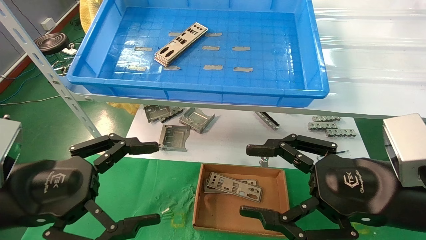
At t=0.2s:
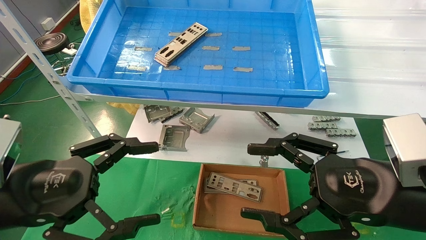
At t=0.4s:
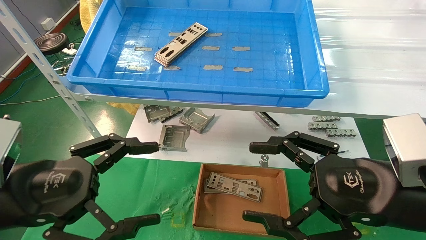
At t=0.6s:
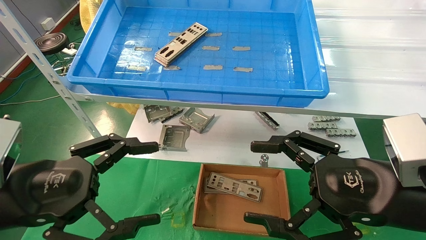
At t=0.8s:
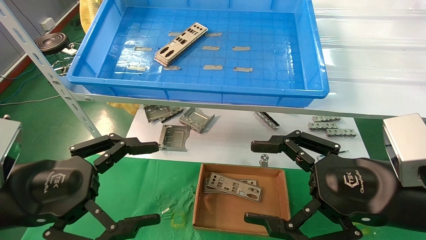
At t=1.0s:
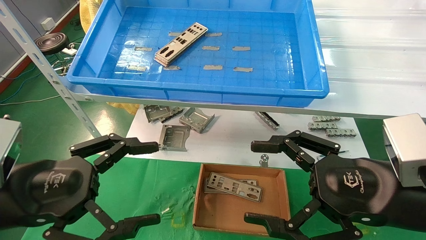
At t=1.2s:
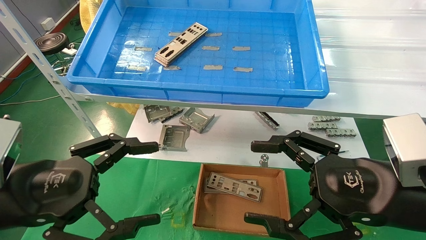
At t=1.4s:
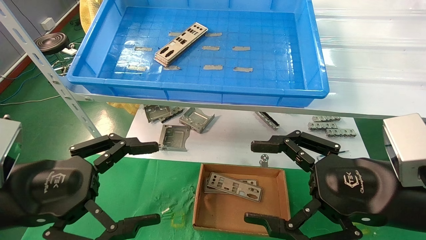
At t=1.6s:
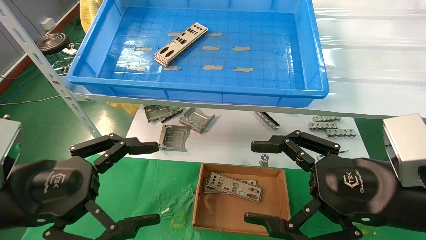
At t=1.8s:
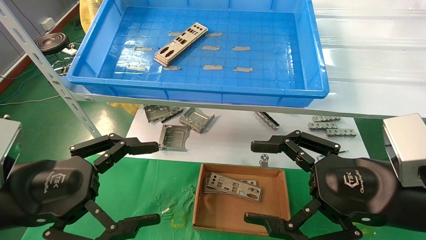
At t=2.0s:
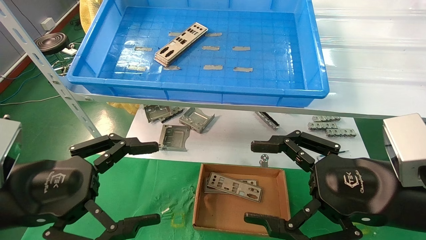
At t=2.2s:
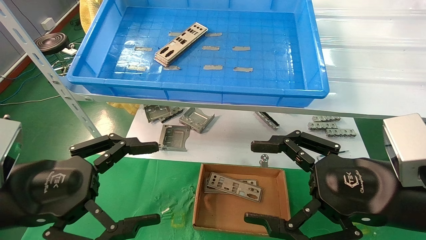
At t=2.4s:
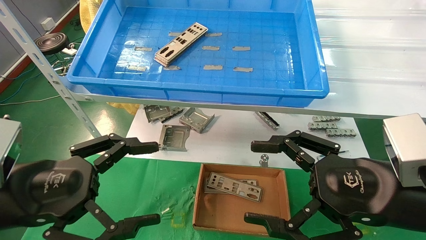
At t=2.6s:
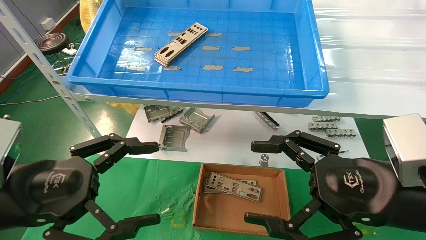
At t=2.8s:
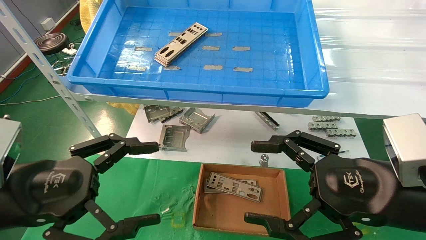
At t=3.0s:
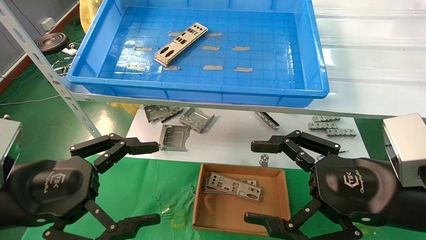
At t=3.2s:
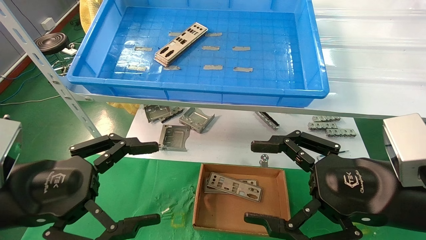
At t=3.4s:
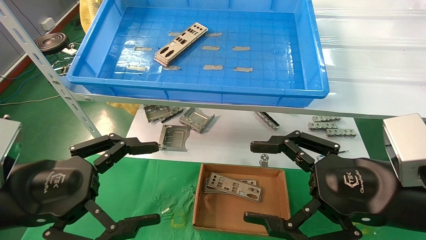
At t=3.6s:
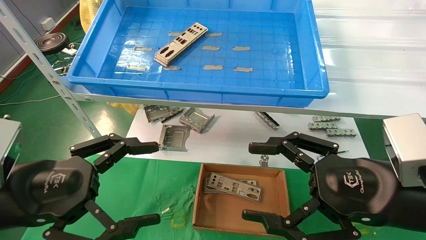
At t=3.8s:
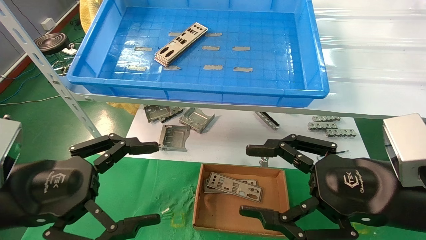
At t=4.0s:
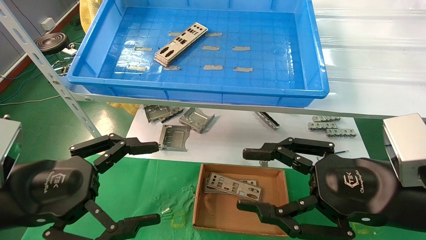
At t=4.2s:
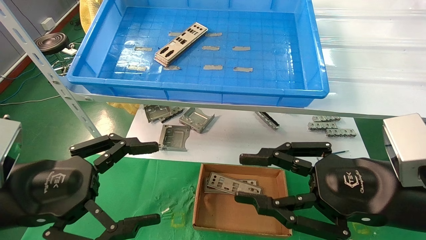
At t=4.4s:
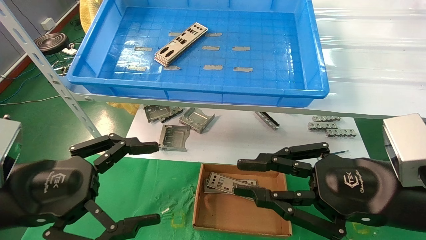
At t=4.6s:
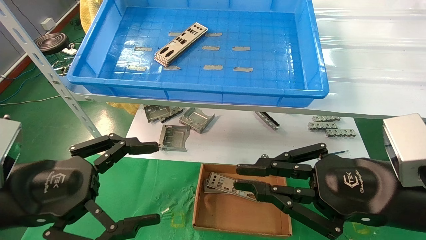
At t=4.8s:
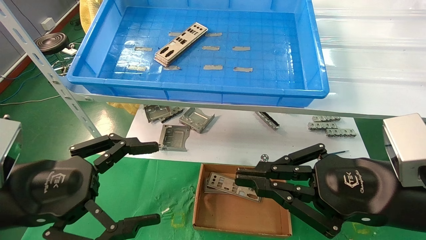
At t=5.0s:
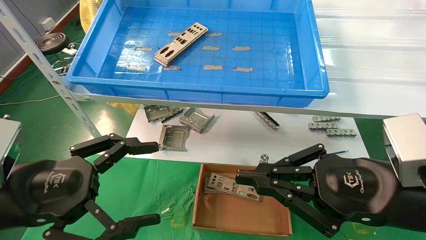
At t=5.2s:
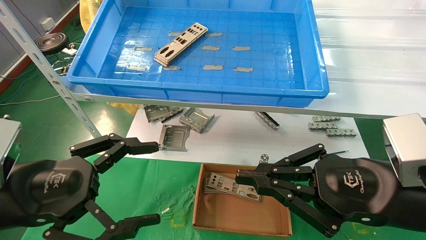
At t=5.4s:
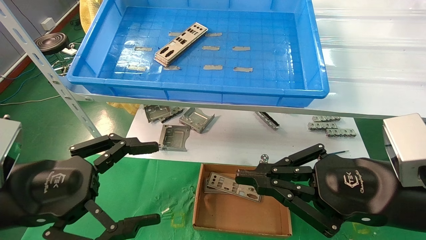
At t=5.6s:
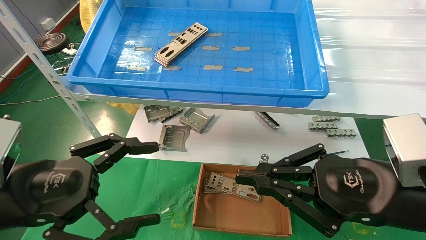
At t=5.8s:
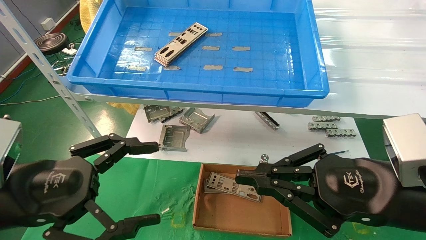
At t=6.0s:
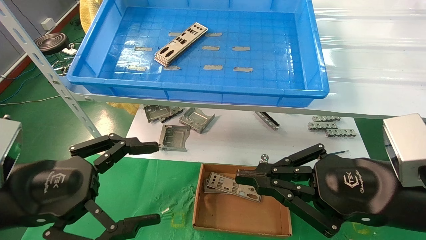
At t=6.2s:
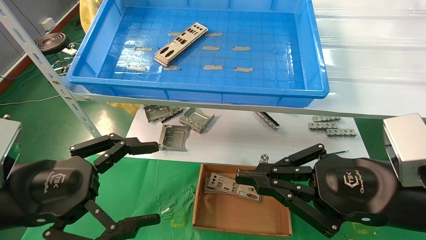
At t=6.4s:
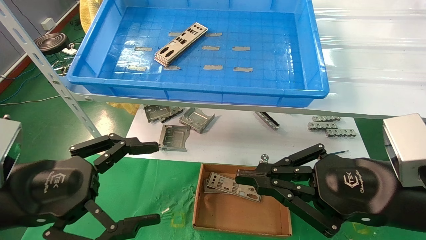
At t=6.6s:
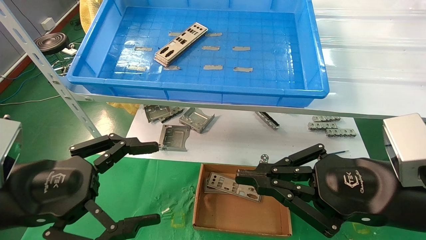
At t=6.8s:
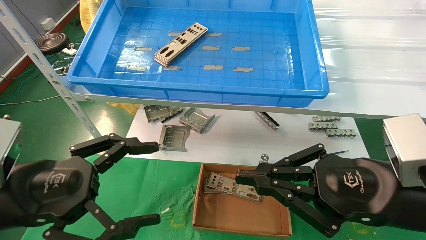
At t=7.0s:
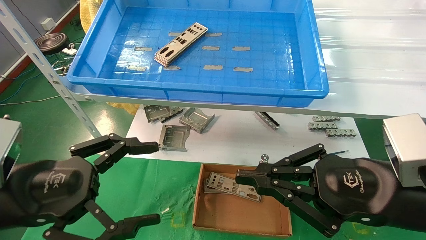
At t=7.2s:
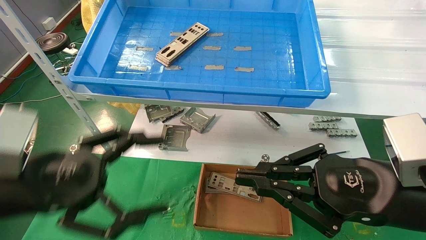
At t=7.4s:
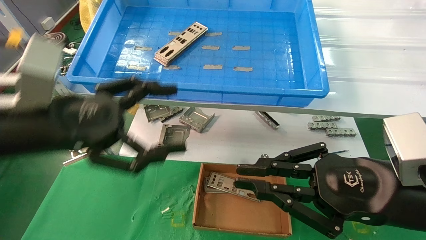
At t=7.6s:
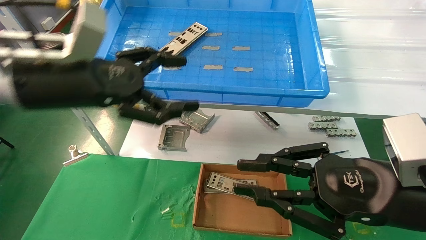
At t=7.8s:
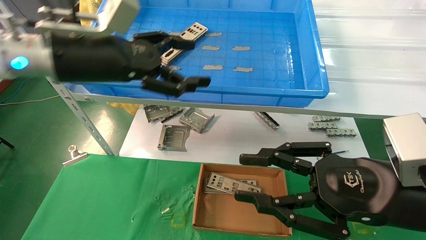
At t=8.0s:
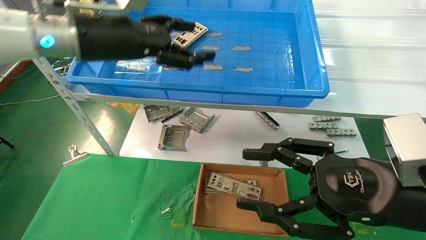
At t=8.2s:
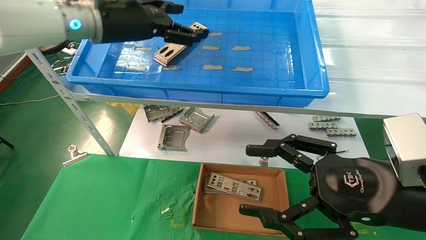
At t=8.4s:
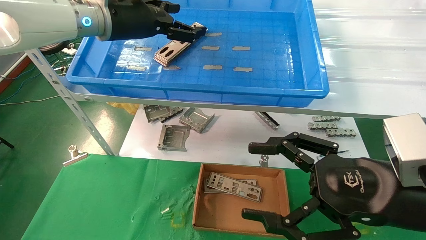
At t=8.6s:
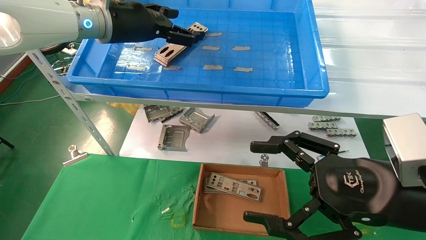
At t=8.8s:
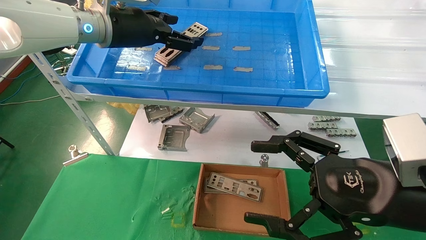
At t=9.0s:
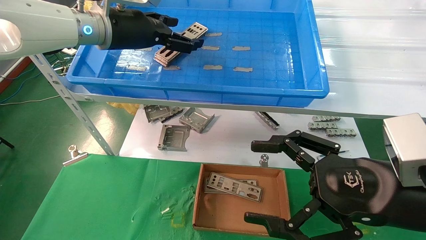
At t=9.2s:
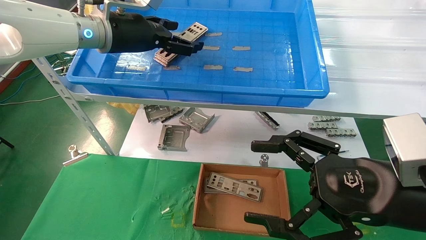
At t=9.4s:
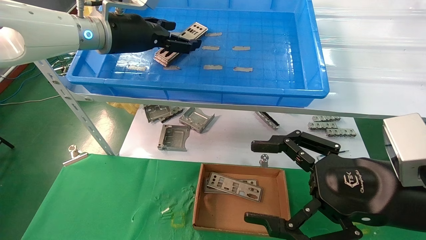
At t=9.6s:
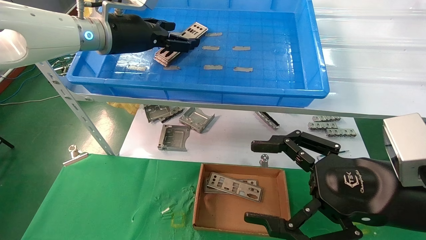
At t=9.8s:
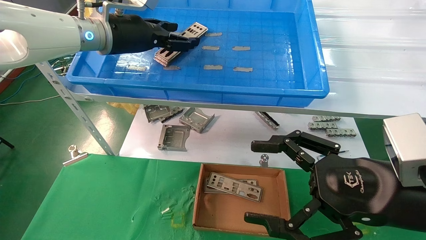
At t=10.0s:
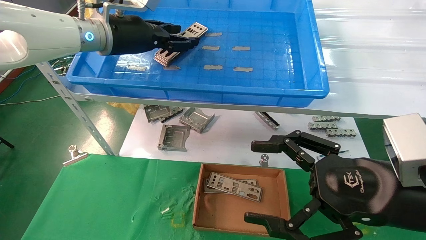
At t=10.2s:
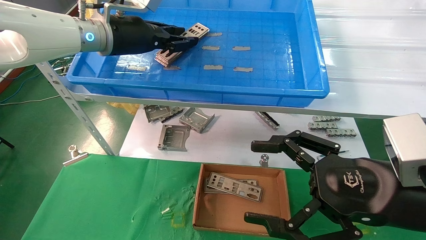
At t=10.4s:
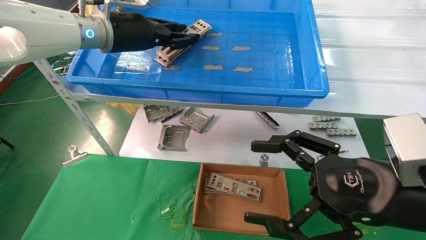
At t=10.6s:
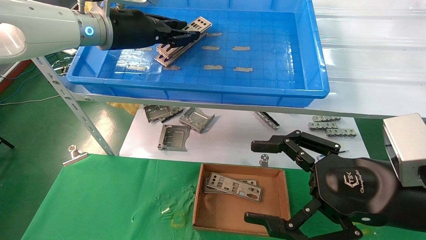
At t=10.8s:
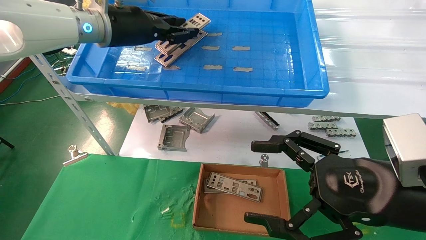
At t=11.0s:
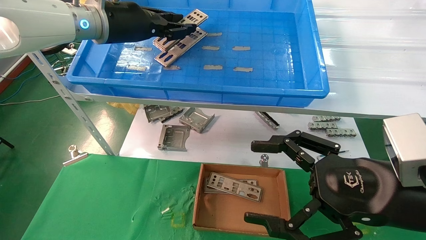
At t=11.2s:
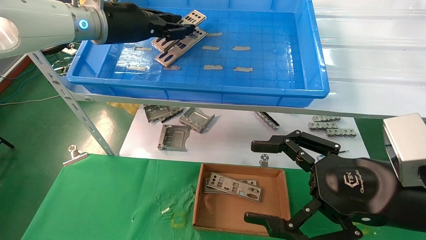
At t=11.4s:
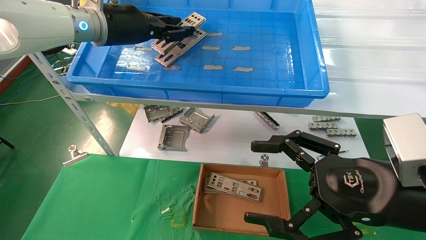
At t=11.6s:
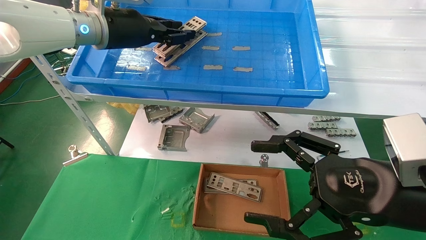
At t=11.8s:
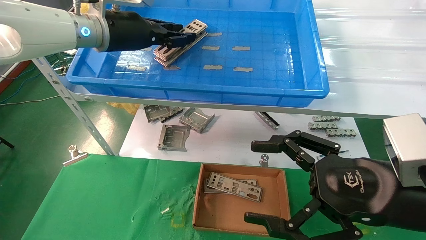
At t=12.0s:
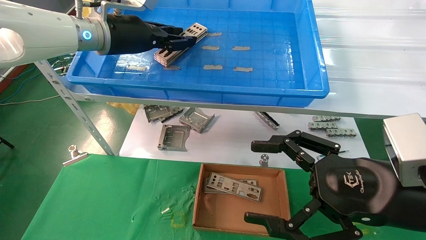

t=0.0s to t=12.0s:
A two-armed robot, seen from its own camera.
Task of the whole recording: pick up the parts on the tray and put them in the cardboard box.
t=0.0s to t=3.0s: Both grippers stay put.
t=3.0s to t=4.4s: The right gripper closes up.
t=4.4s to t=6.0s: The right gripper closes its fingers.
t=6.0s to t=7.6s: The left gripper heads upward and forward, covering approximately 15 cm.
t=7.6s to t=9.0s: The left gripper heads forward and upward, covering approximately 15 cm. The right gripper opens.
t=9.0s to t=10.4s: The left gripper closes its fingers.
t=10.4s to t=12.0s: The two grippers keep their place.

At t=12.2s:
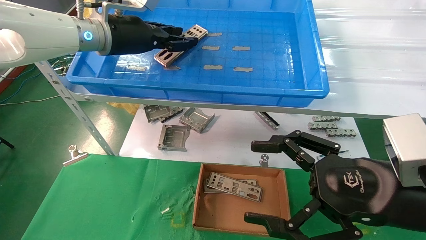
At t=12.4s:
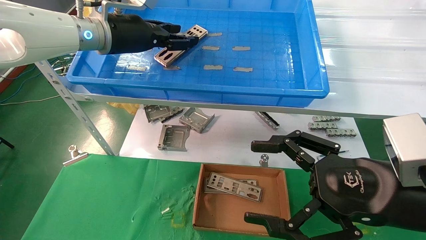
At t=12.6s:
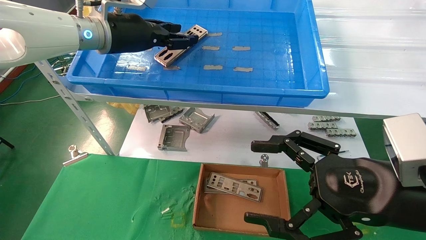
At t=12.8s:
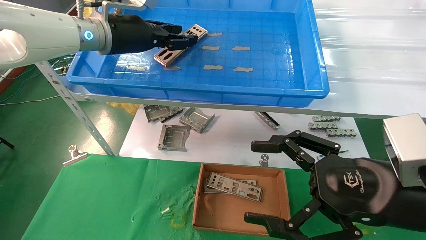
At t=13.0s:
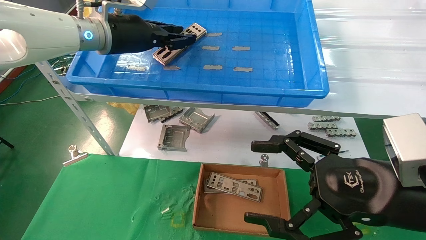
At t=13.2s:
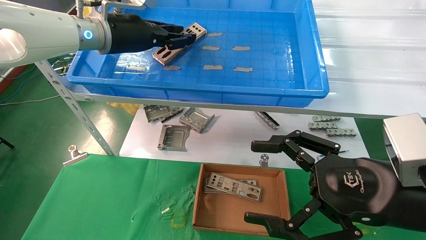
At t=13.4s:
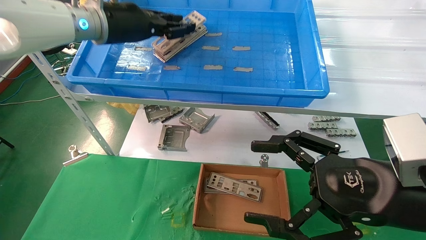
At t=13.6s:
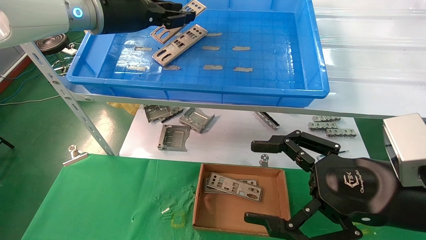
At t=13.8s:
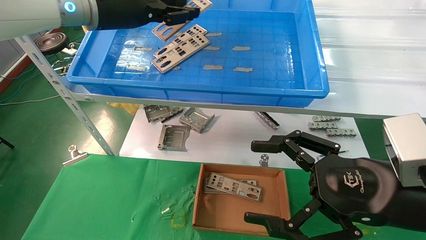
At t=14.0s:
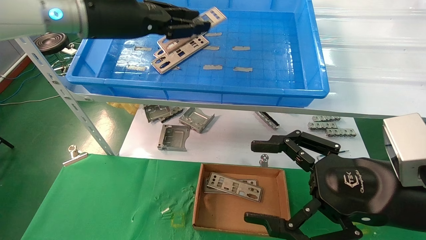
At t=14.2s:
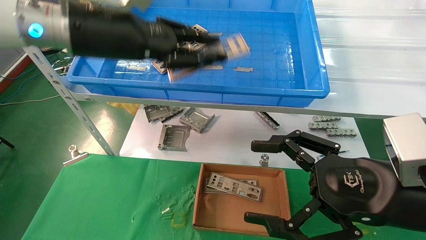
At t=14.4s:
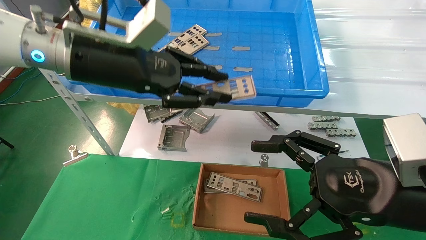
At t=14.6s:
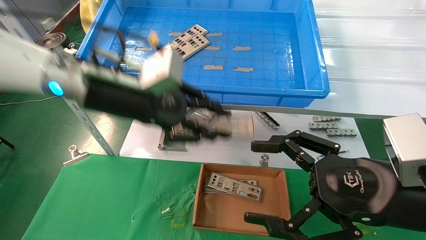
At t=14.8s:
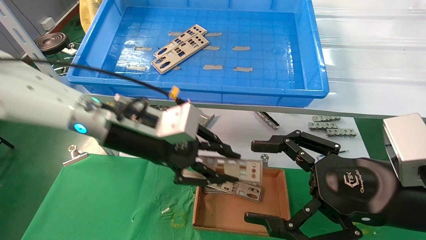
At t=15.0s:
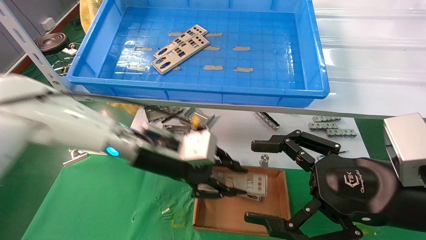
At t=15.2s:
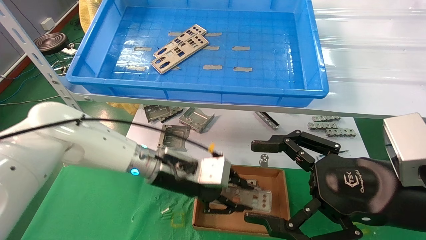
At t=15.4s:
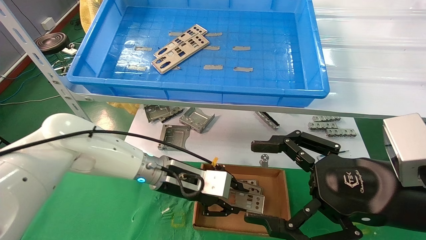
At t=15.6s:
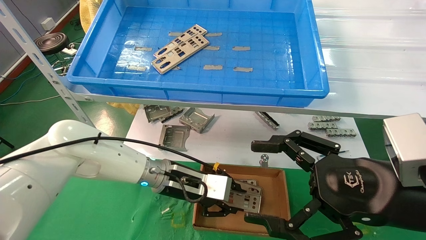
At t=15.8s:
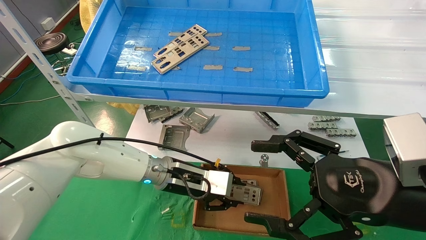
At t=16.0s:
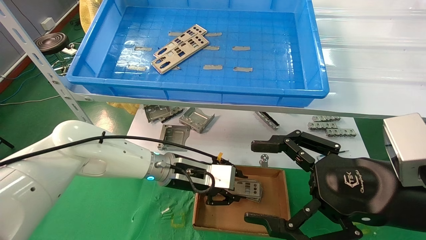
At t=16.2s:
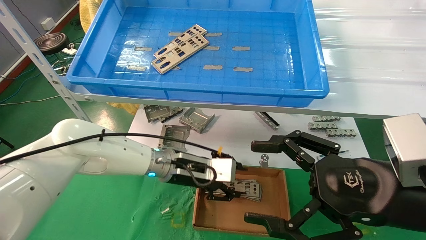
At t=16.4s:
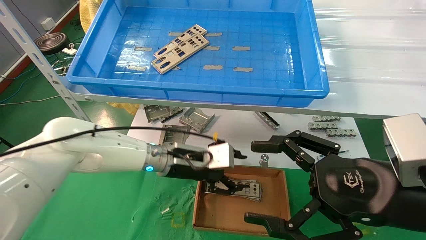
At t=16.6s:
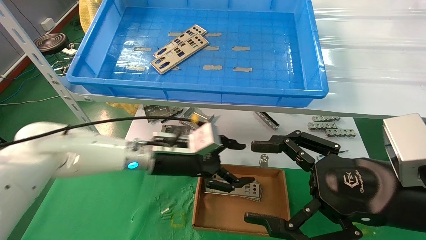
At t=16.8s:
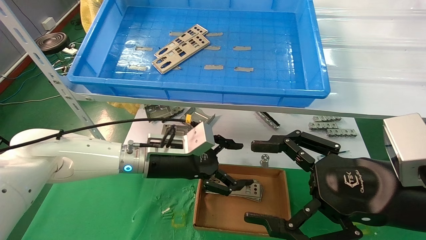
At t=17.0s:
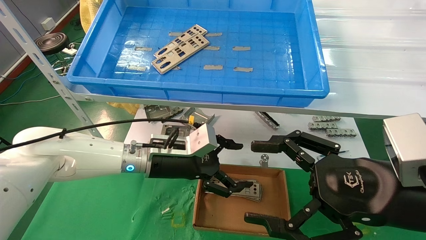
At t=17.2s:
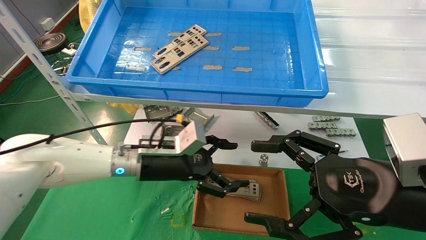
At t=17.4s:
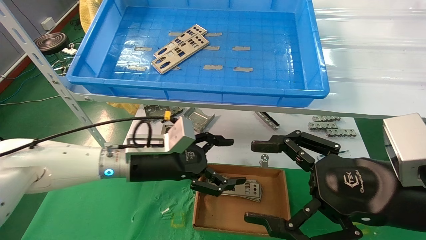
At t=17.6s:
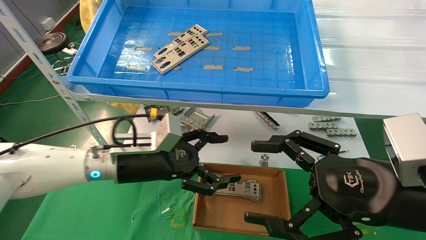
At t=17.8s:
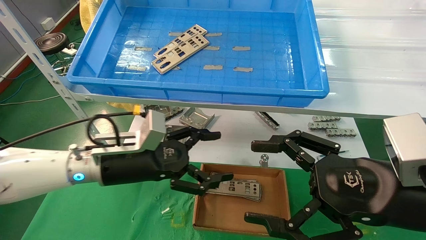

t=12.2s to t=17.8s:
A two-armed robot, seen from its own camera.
Task of the whole recording: pick up the parts on the tray and put them in the cardboard box.
Step, t=13.2s to t=16.2s: Place the IO bracket into the ingredient slot.
t=12.2s to t=13.6s: The grippers move only a little.
t=13.6s to t=15.0s: The left gripper travels downward by roughly 25 cm.
t=15.0s to t=16.4s: The left gripper moves downward, approximately 5 cm, and opens its fingers.
t=16.4s to t=17.8s: The left gripper goes some 10 cm to the left and backward, and opens its fingers.
